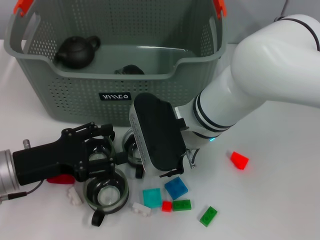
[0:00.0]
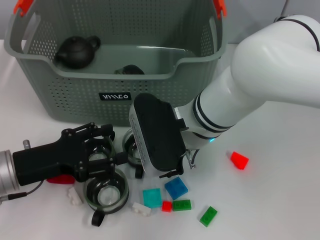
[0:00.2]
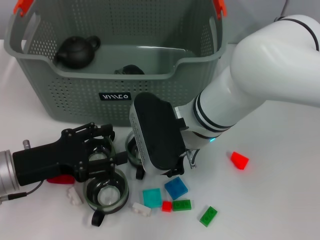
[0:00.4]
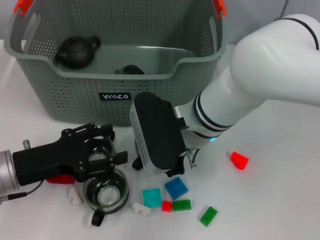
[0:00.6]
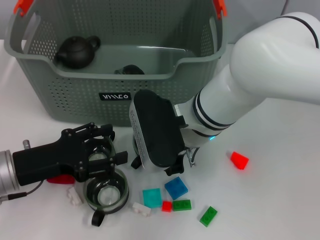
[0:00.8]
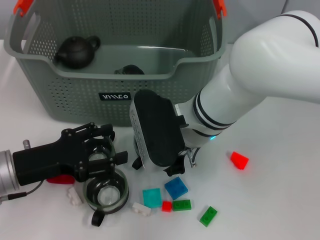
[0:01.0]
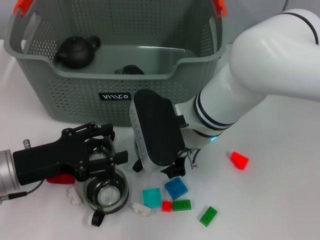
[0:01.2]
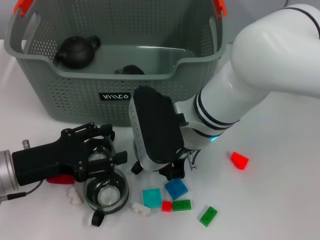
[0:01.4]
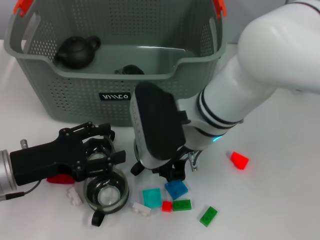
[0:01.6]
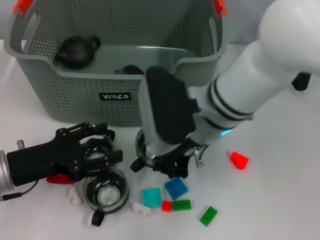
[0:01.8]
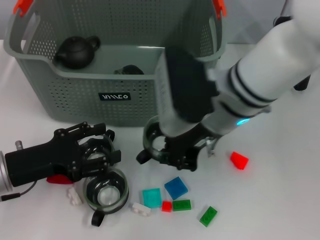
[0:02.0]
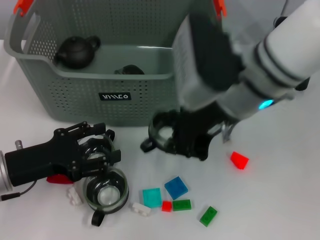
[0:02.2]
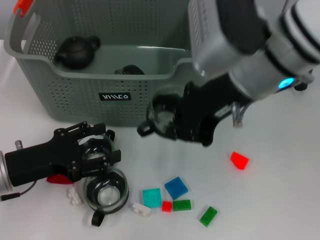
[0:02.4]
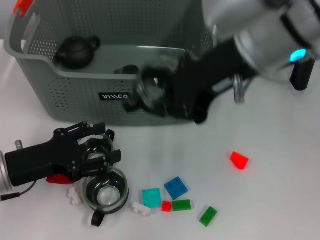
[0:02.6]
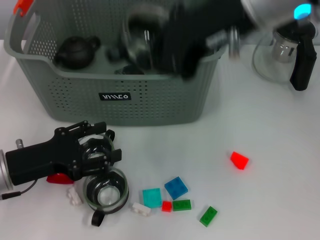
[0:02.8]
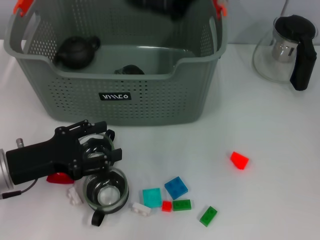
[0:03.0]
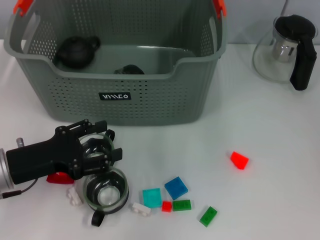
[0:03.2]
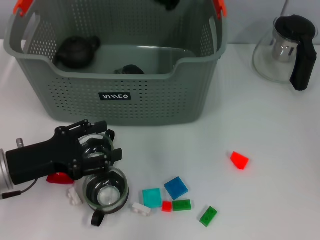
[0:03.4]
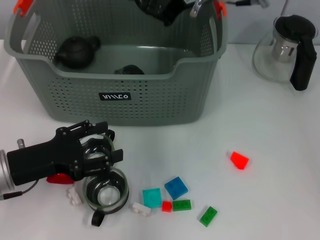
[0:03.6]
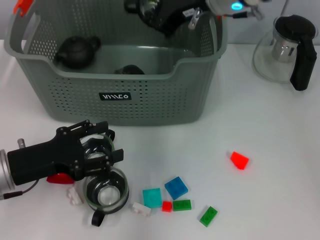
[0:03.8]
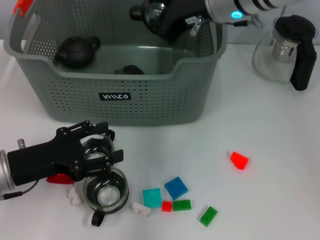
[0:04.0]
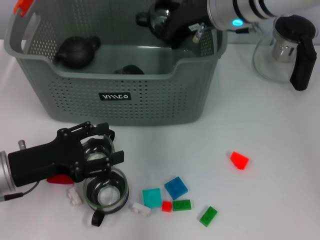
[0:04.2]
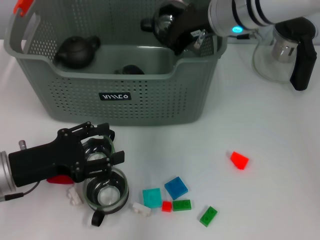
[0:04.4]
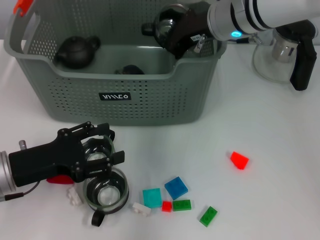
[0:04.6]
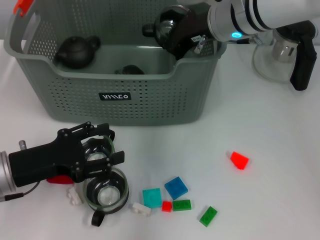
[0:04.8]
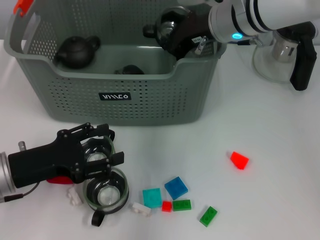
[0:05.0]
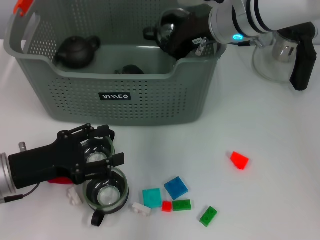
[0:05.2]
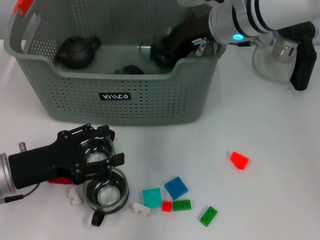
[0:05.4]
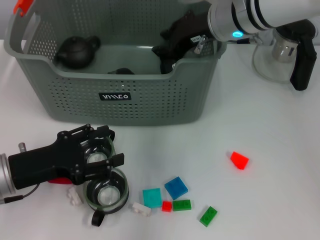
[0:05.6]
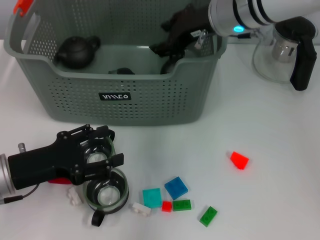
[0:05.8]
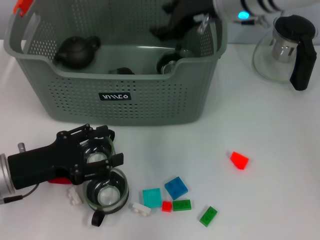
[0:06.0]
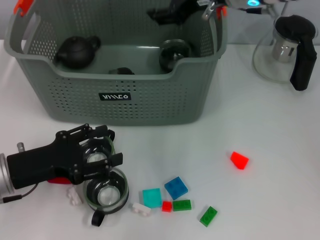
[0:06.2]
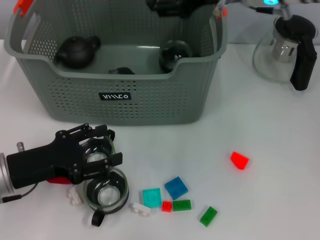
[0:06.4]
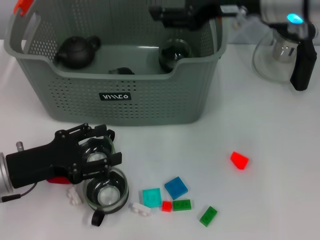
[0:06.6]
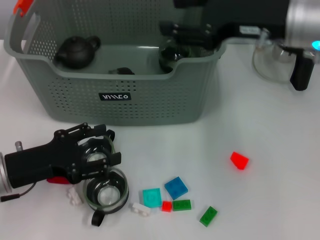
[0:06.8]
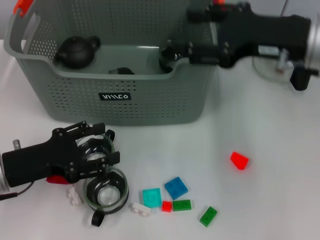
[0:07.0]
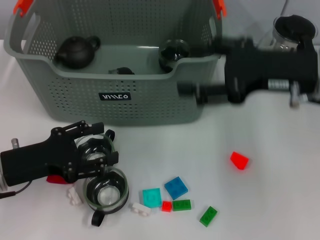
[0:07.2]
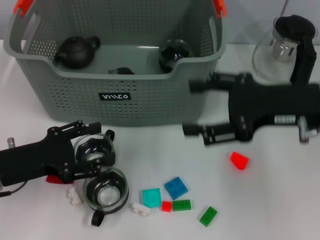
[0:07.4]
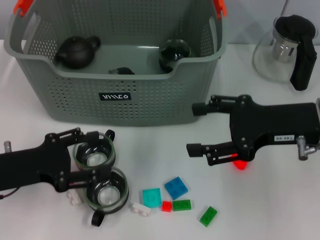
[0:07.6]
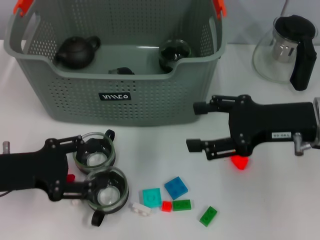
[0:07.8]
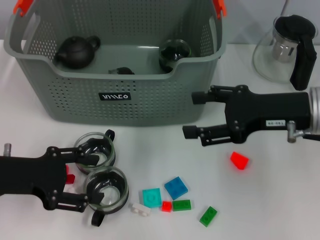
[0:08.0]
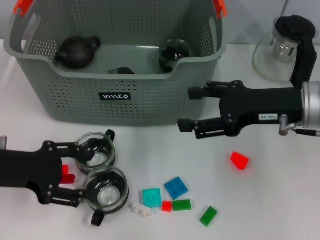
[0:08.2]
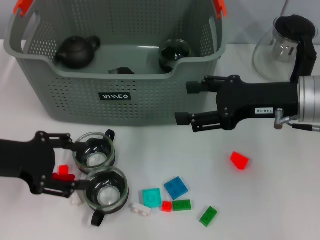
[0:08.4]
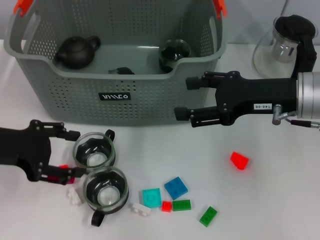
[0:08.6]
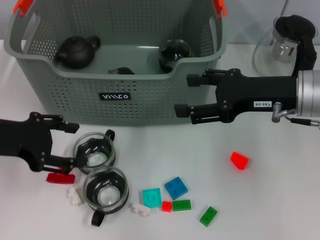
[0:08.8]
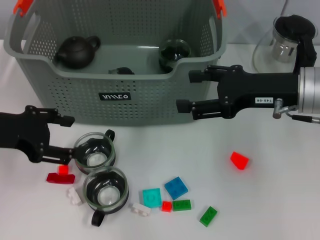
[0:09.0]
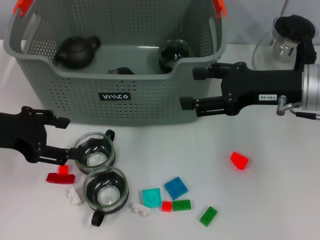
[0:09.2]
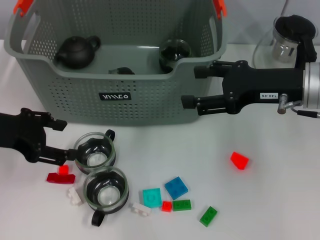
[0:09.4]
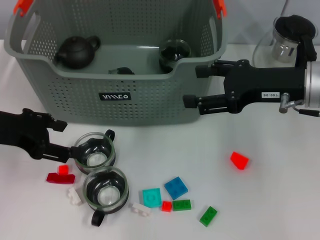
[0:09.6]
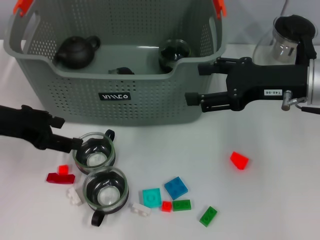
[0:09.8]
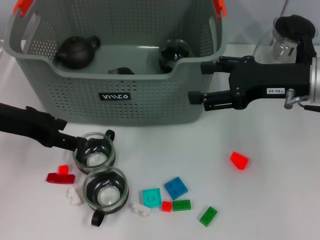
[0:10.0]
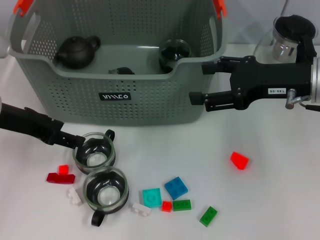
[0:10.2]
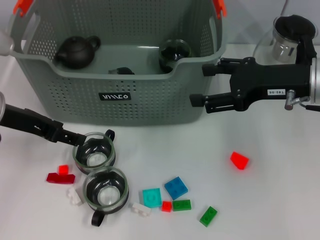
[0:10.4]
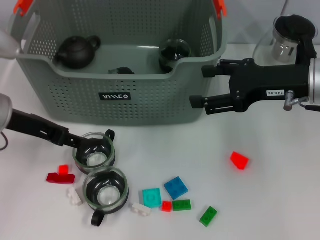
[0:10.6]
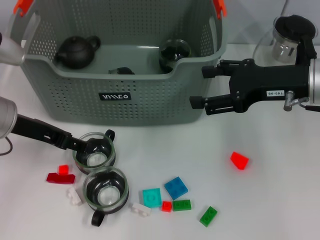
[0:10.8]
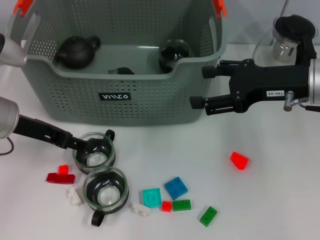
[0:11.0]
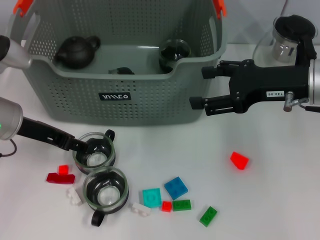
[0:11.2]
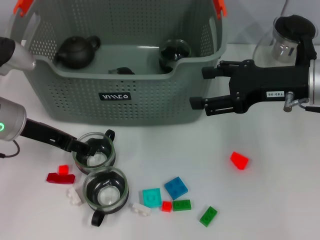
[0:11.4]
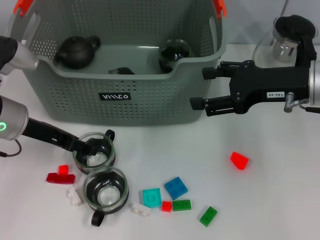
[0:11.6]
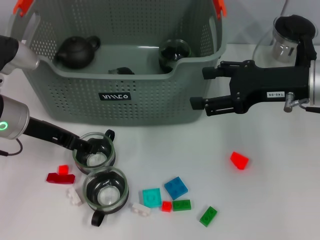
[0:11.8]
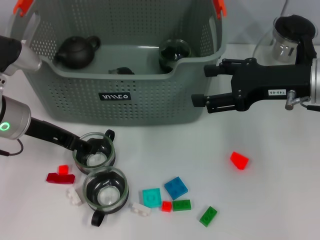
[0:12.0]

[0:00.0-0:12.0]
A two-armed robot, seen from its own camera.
Task of the whole recording: pick up the teacup on the table and place it into the storage bin, pick up the block on the table and place it into the storage bin.
Step, 0:00.8 to 0:05.6: Place the cup in the storage box with right gripper.
0:00.0 to 0:01.6: The right gripper closes.
0:01.6 to 0:03.0: The right gripper travels upward by roughly 20 cm.
0:03.0 to 0:04.4: The right gripper heads downward and forward, covering some 15 cm.
0:04.4 to 0:06.0: The right gripper opens.
0:06.0 to 0:07.6: The right gripper shifts approximately 20 cm backward, to the right and downward, and opens its fingers.
0:07.6 to 0:09.0: The left gripper goes some 10 cm upward.
0:10.4 to 0:12.0: There are only small adjustments of the grippers.

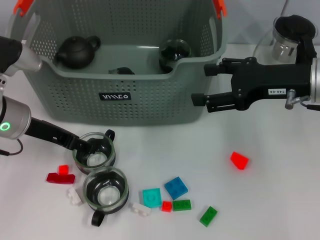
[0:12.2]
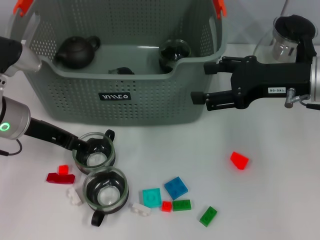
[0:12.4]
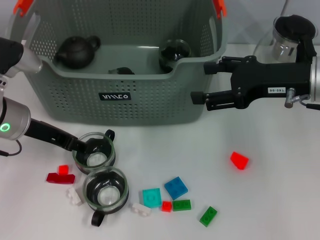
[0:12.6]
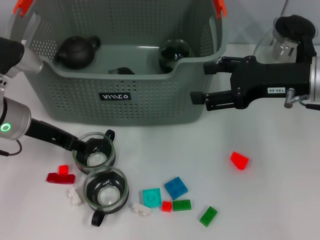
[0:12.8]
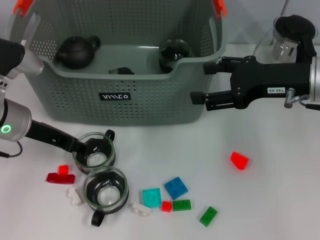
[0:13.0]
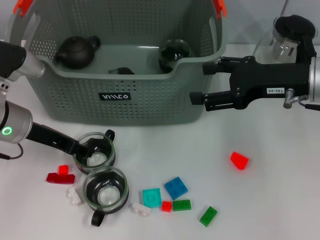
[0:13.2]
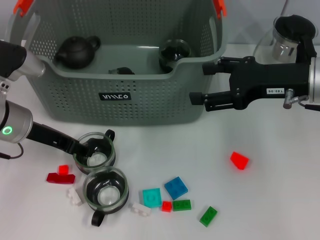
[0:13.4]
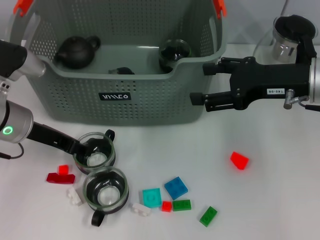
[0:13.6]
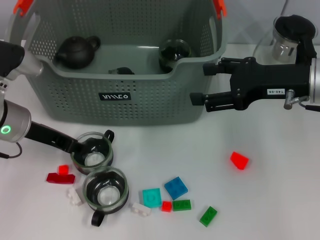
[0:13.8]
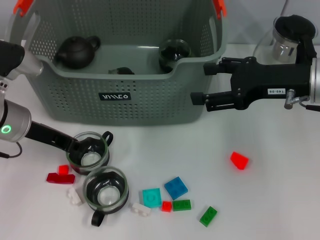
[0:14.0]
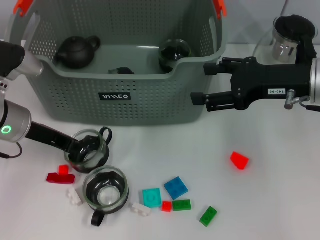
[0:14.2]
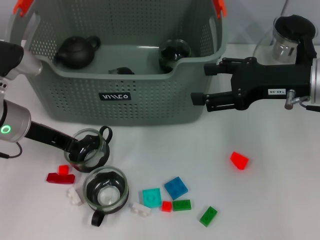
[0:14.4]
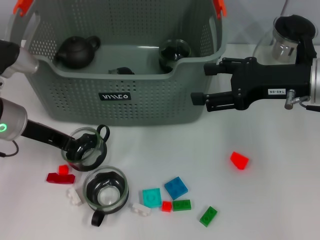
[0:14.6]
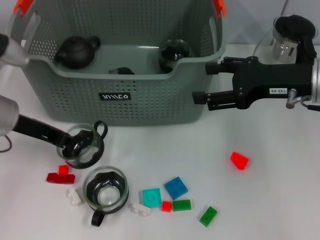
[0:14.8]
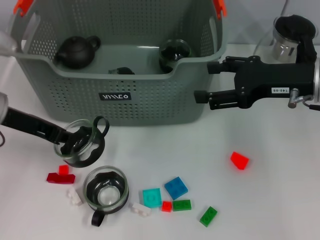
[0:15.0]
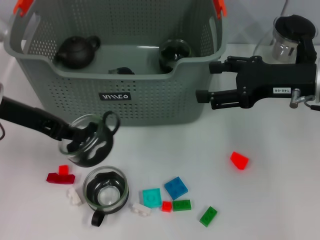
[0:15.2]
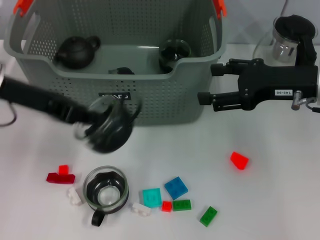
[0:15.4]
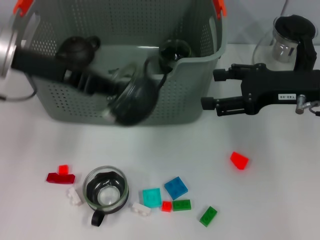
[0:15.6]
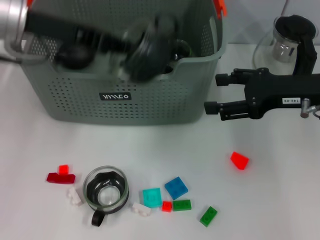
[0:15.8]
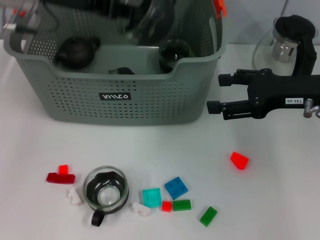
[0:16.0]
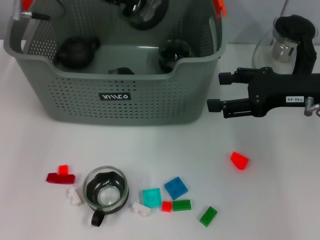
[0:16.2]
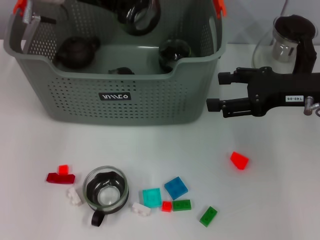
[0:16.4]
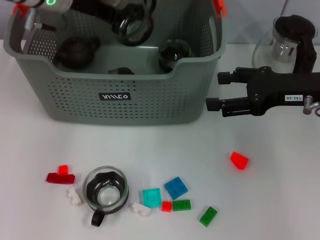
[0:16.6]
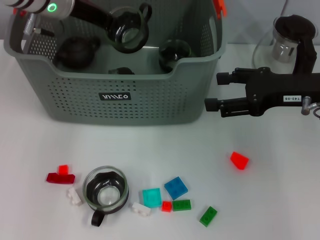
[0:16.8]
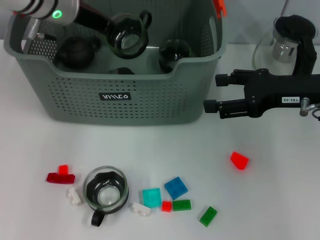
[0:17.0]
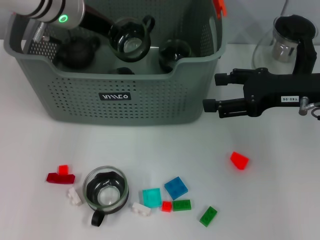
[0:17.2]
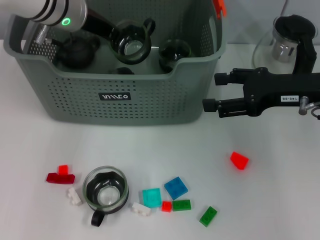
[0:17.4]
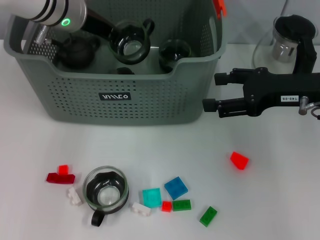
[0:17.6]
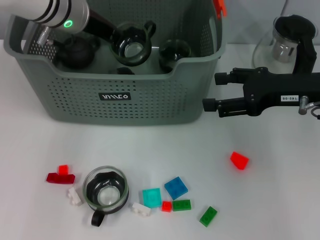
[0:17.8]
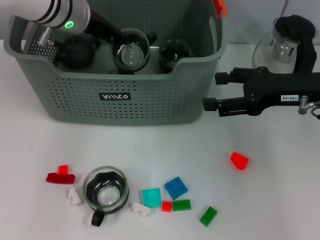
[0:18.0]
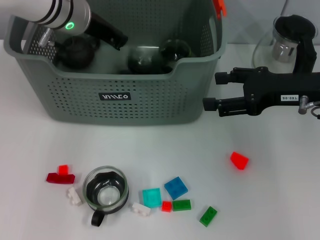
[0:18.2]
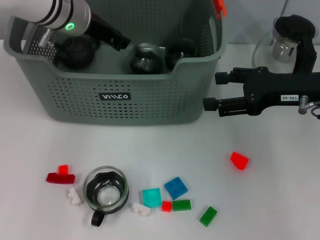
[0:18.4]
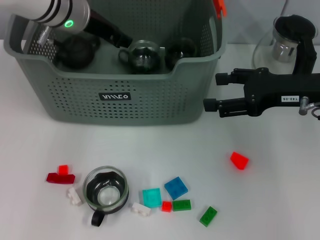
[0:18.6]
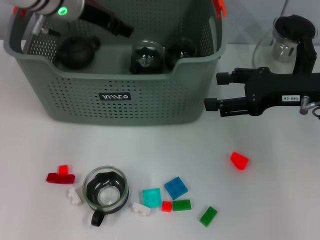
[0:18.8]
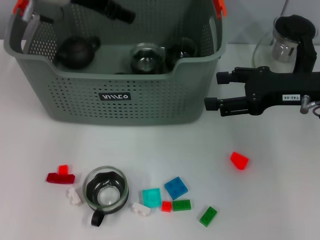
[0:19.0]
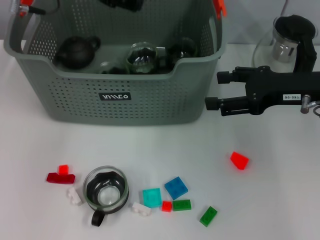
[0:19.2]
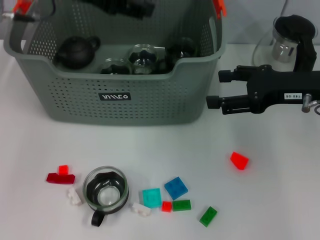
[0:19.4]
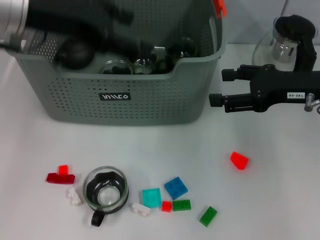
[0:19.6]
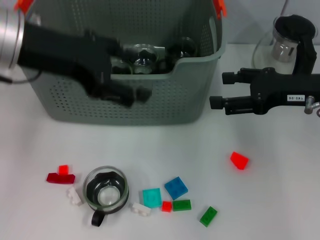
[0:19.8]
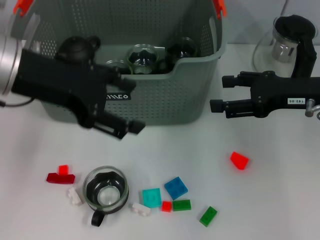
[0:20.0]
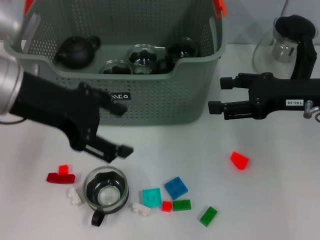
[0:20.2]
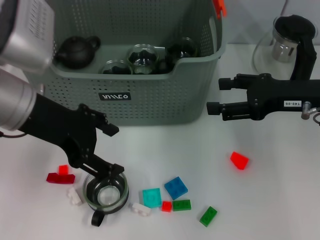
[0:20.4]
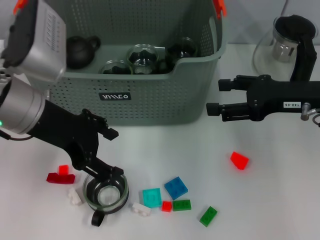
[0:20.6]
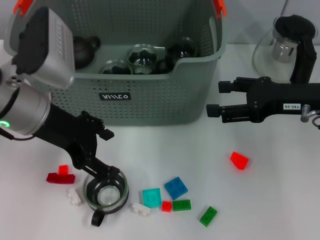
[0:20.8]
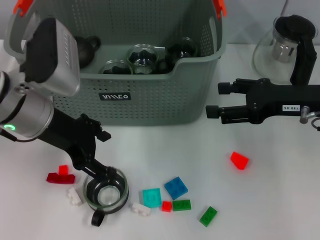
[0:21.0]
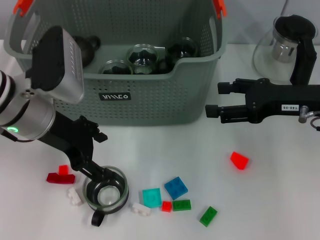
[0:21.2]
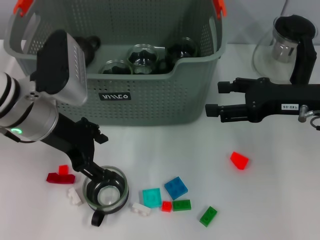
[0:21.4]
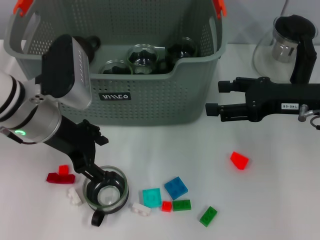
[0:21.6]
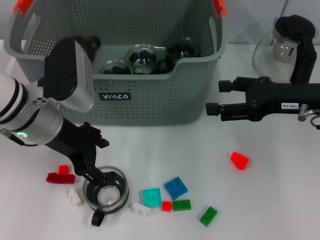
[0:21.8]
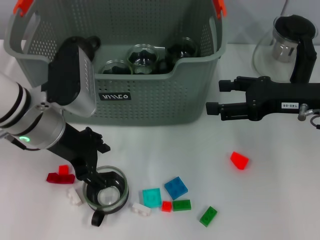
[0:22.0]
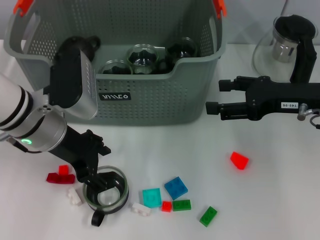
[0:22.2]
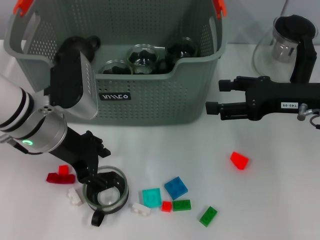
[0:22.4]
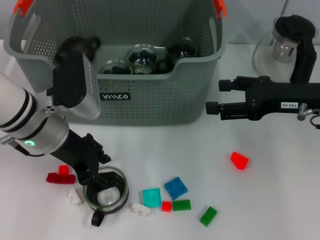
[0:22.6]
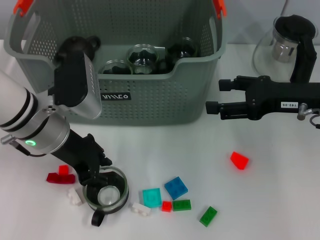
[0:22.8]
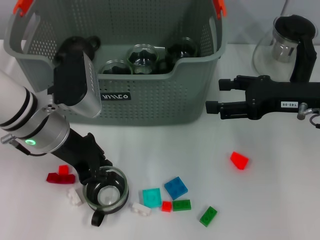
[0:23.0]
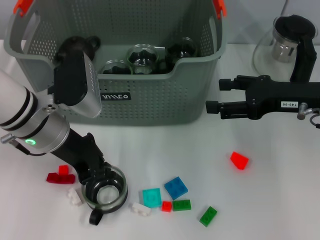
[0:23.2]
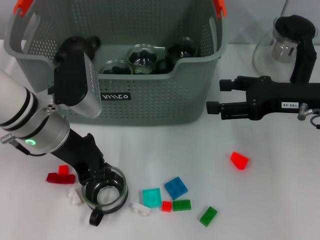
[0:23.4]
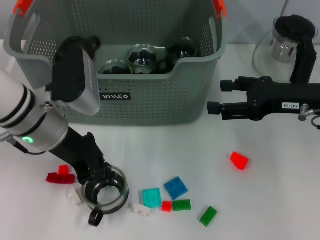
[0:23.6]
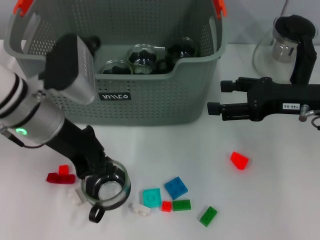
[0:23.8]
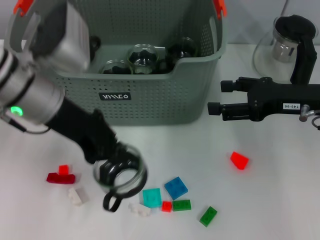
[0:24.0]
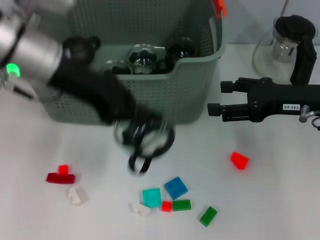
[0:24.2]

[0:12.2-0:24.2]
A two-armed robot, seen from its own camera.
Task of the whole recording: pick up the teacup on the table and place it into the storage bin, pick up the block on the table and place it into the storage bin.
Step, 0:14.4 to 0:18.2: Place the cup in the storage box with left gripper.
Step, 0:18.4 to 0:23.4: Grasp the cup with left gripper.
0:12.2 to 0:13.8: The two grippers keep their place.
0:13.8 to 0:15.2: The left gripper travels upward by roughly 5 cm, and closes its fingers.
0:15.2 to 0:16.6: The left gripper is displaced forward and to the right by some 15 cm.
0:16.6 to 0:18.2: The grippers make only small movements.
0:18.2 to 0:19.8: The left gripper is displaced backward and upward by some 15 cm, and opens its fingers.
0:19.8 to 0:21.2: The left gripper heads downward, covering roughly 10 cm.
0:21.2 to 0:22.6: The grippers make only small movements.
0:22.6 to 0:24.2: The left gripper travels upward by about 10 cm, and closes.
